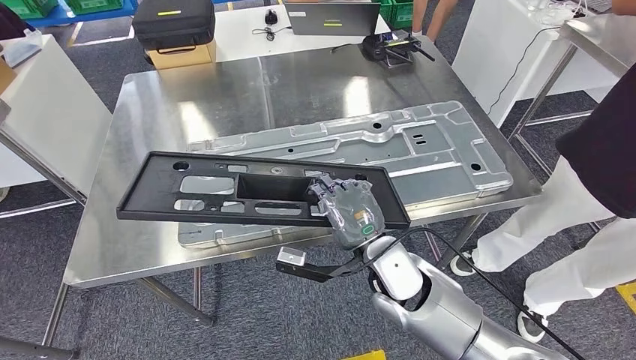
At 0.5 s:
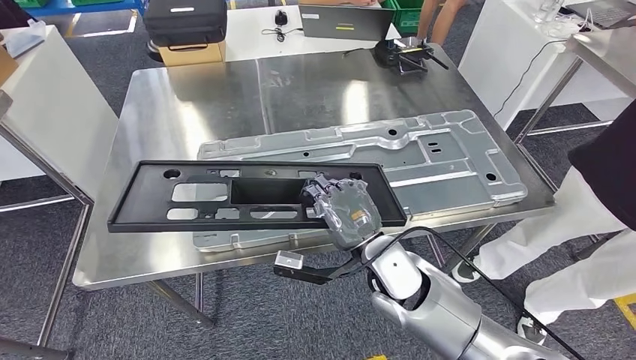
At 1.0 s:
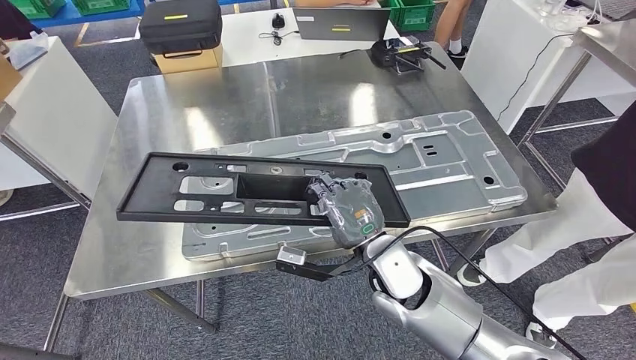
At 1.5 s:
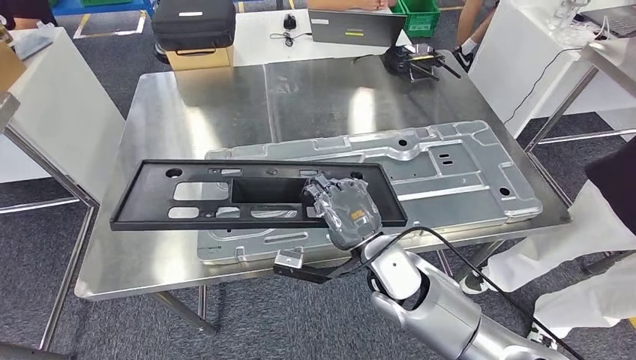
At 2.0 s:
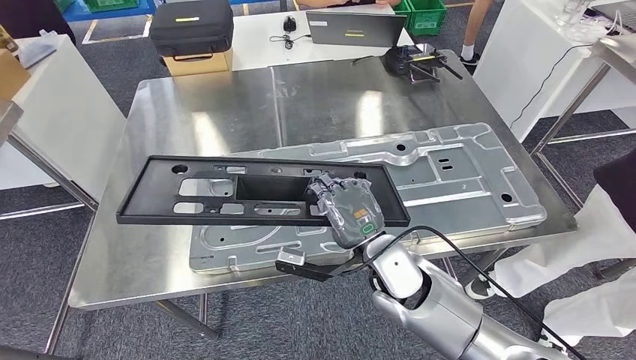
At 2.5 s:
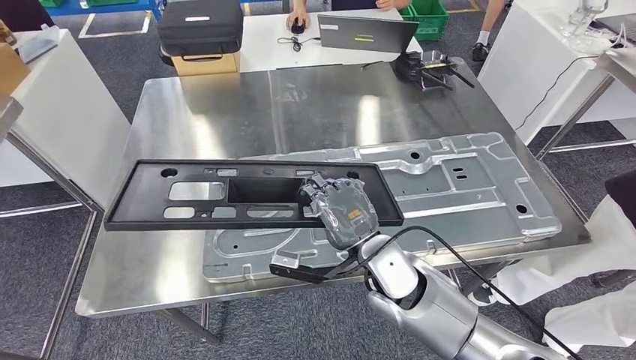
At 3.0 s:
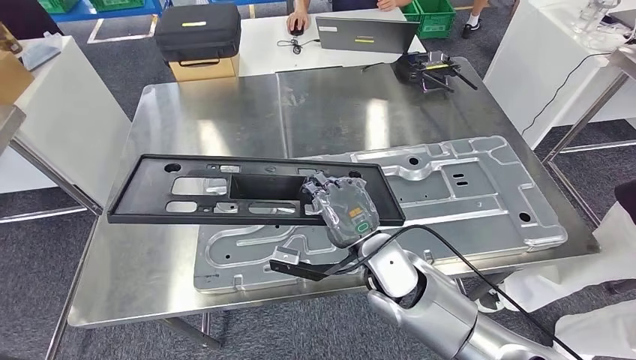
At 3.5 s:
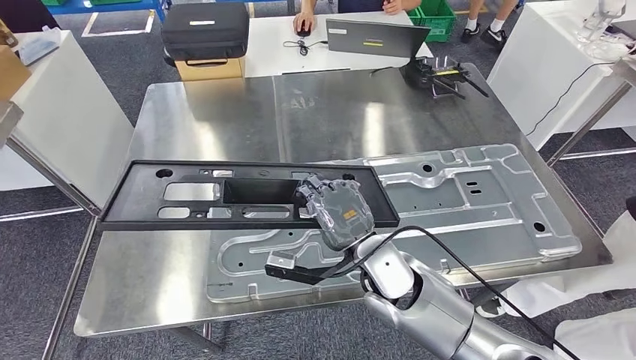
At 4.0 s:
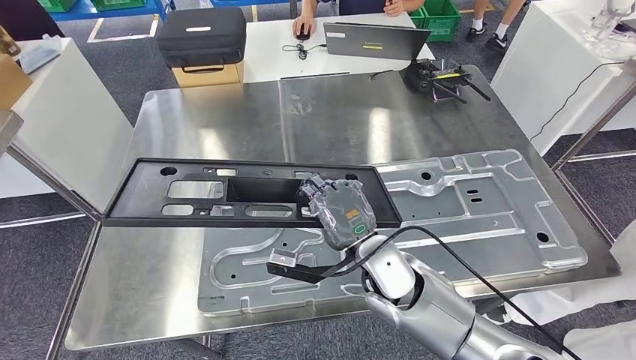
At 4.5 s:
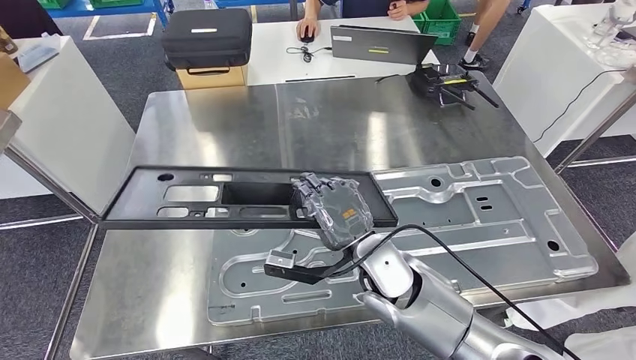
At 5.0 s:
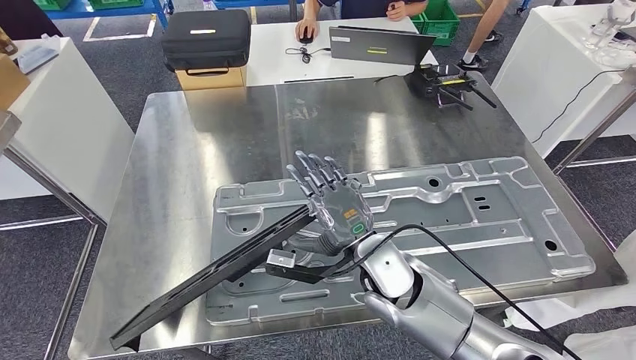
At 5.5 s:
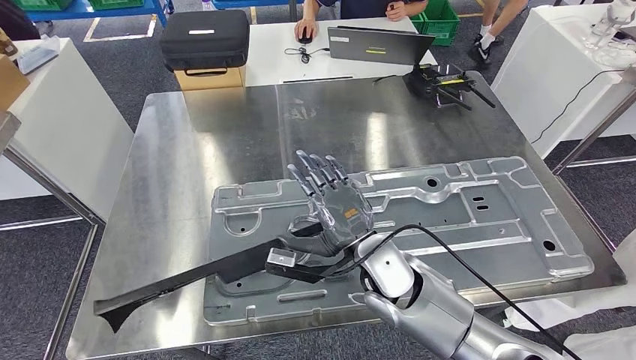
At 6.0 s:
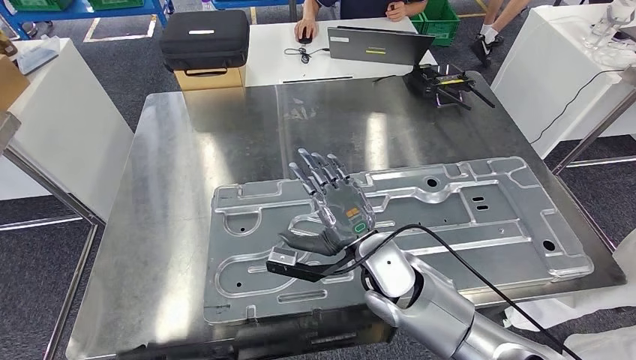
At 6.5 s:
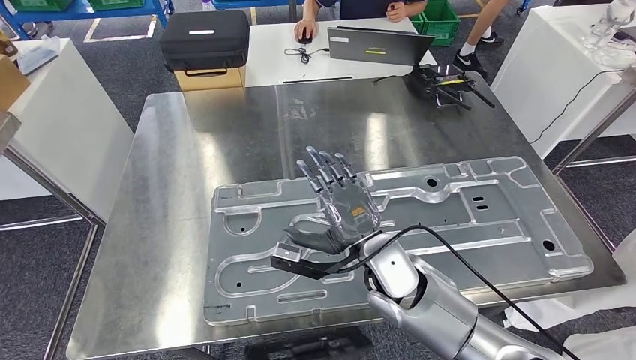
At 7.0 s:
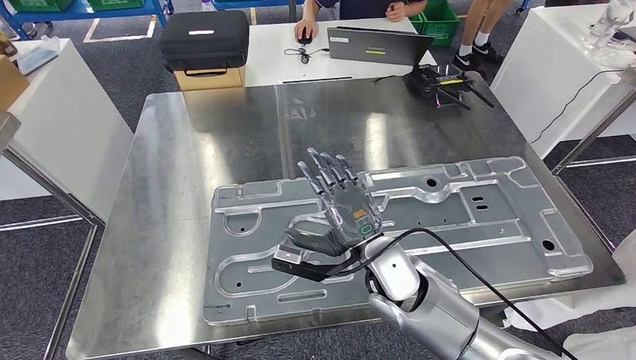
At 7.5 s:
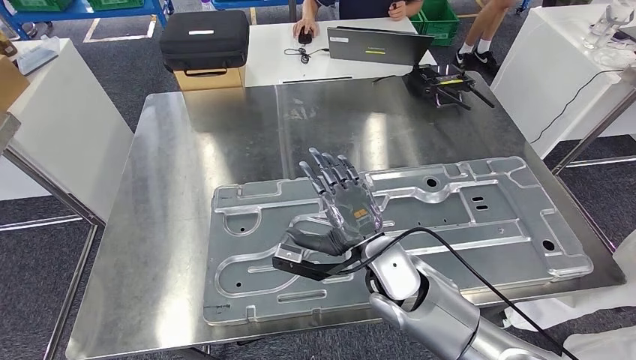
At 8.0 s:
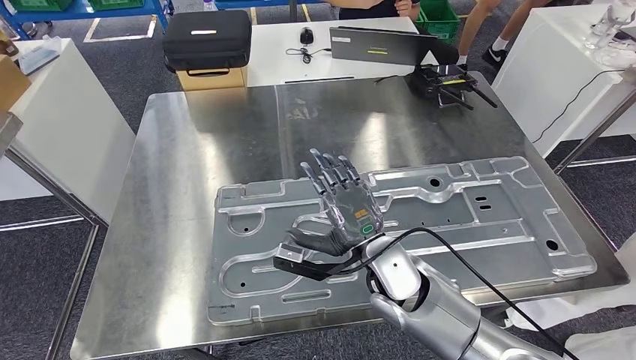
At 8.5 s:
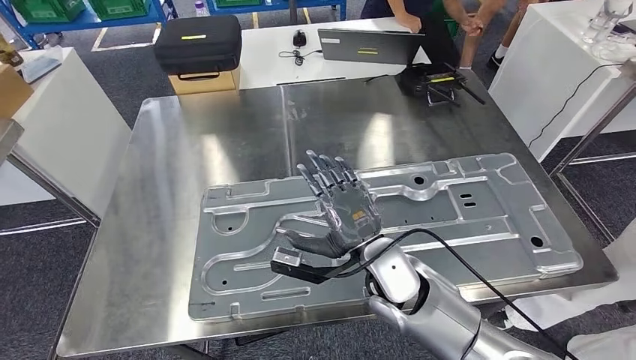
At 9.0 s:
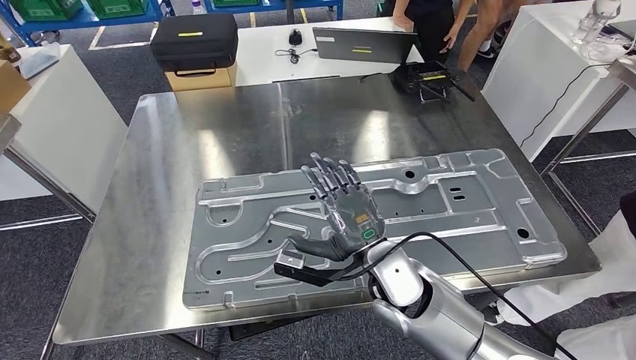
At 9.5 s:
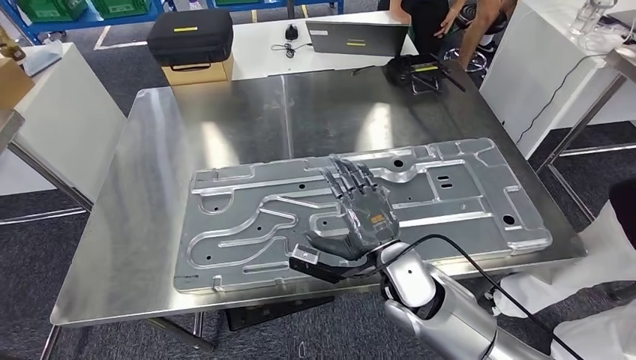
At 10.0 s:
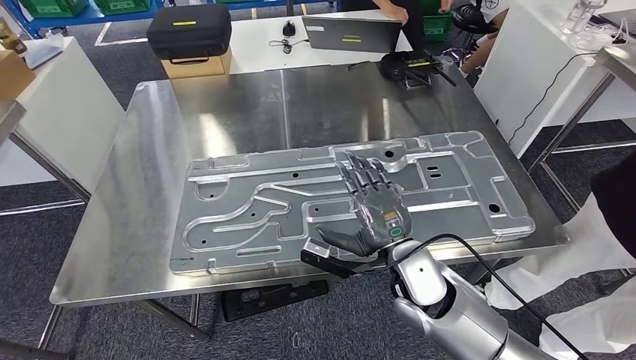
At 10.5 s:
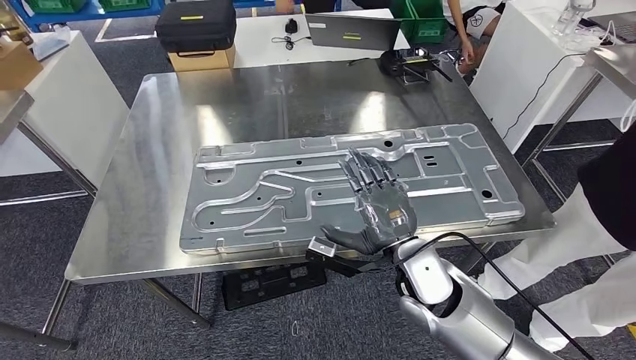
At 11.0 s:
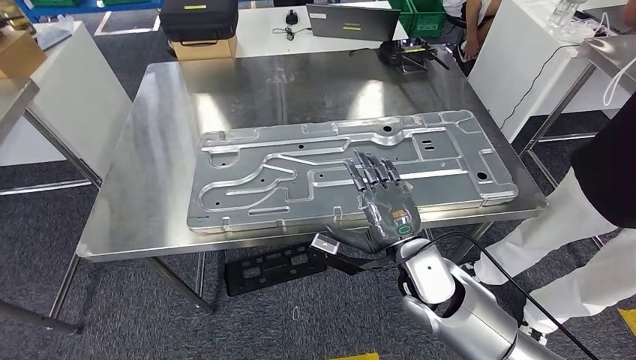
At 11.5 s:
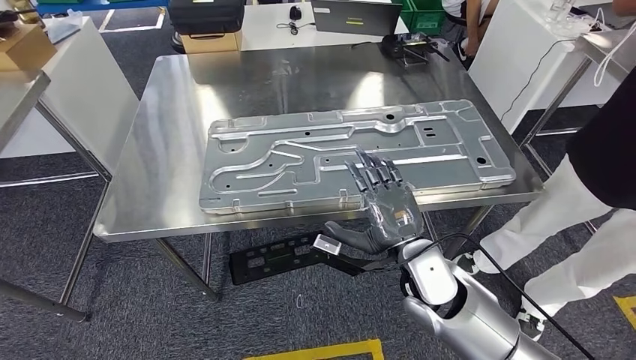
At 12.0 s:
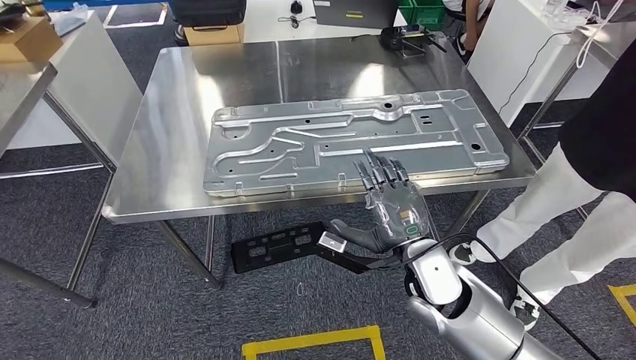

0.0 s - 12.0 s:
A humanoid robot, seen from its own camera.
Step, 0.0 s - 5.5 s: Insert the large material into the corresponding slot on the workbench.
6.0 s - 8.0 s: The two hands keep their place.

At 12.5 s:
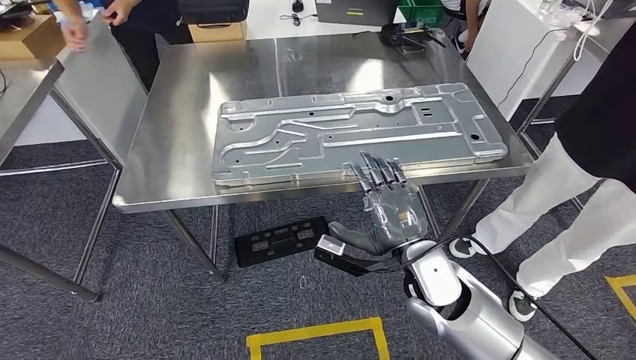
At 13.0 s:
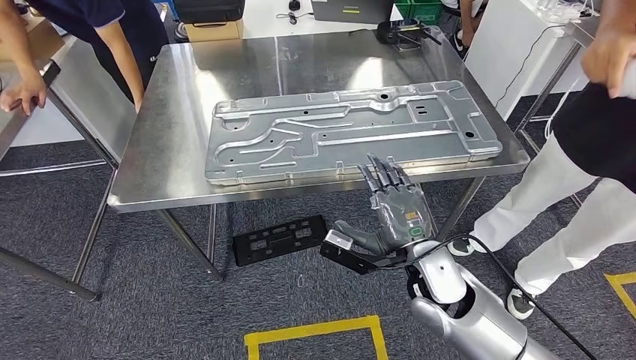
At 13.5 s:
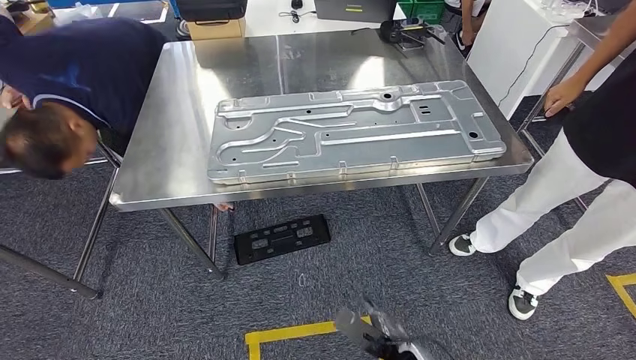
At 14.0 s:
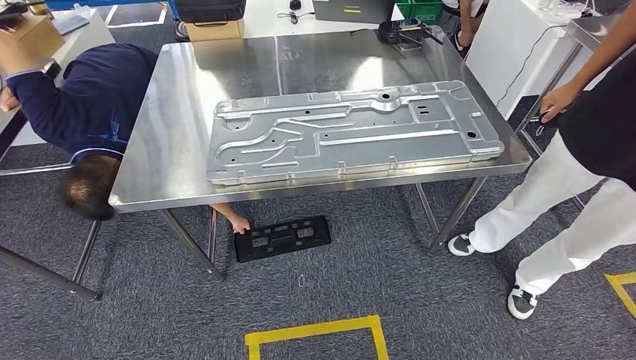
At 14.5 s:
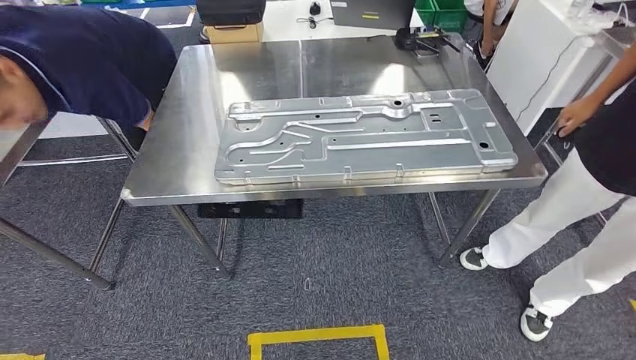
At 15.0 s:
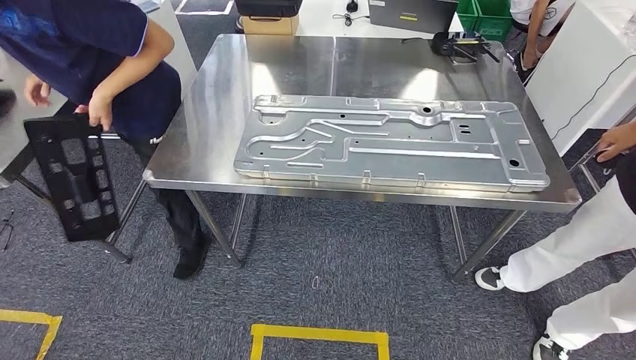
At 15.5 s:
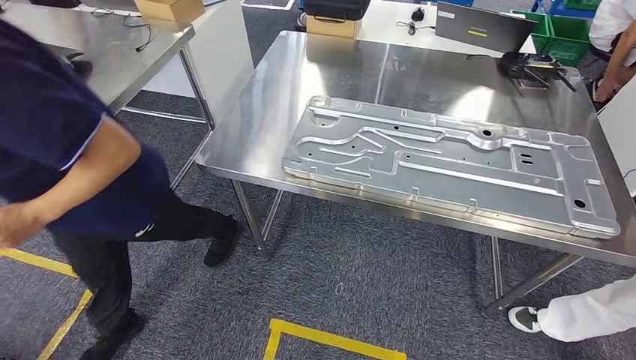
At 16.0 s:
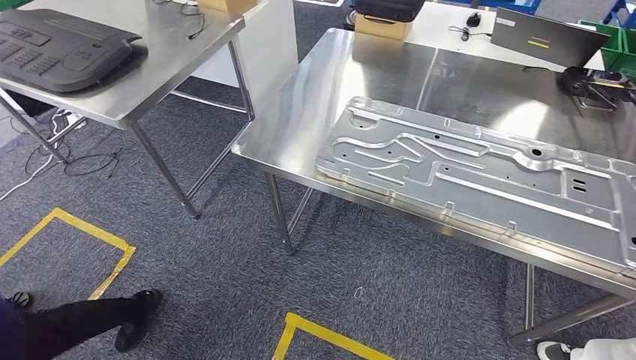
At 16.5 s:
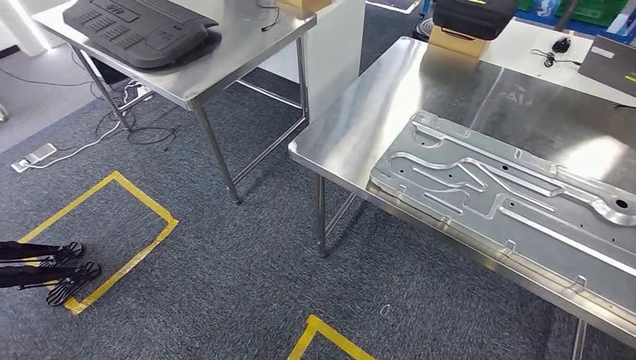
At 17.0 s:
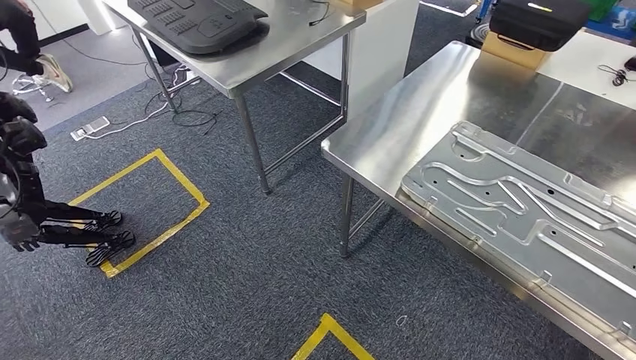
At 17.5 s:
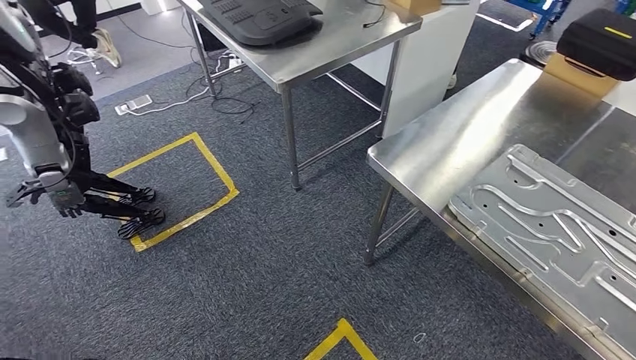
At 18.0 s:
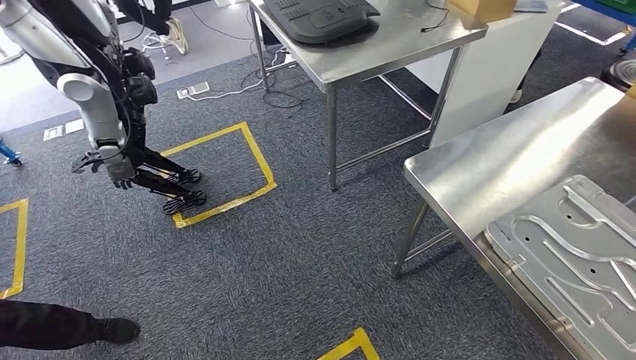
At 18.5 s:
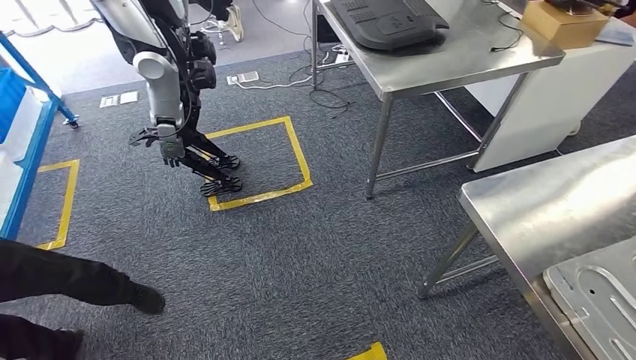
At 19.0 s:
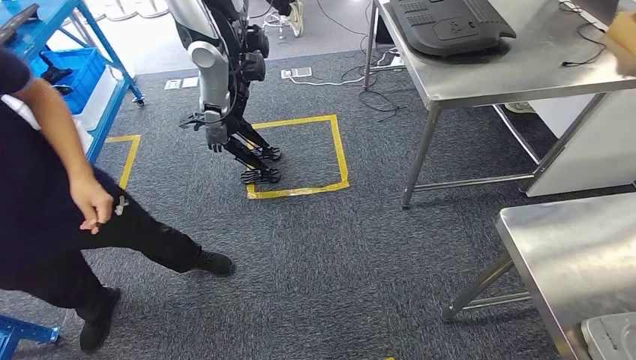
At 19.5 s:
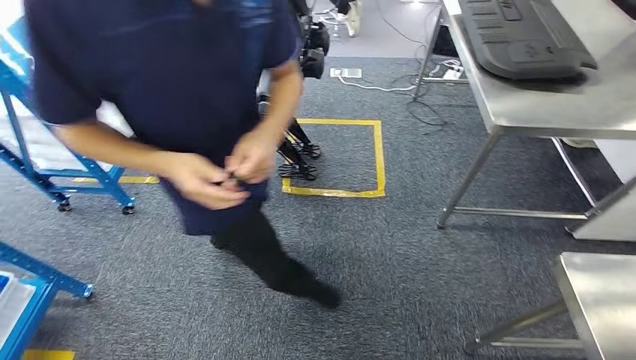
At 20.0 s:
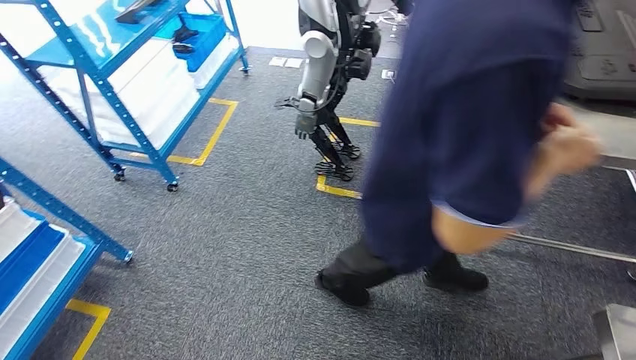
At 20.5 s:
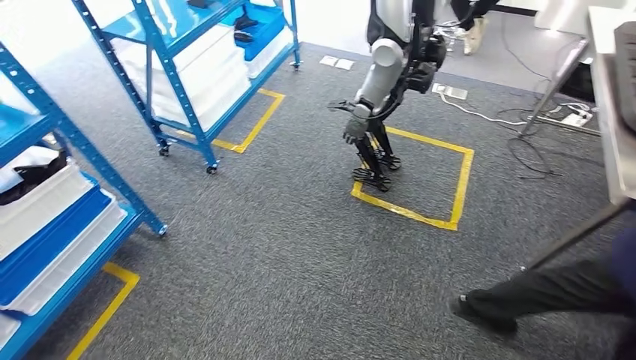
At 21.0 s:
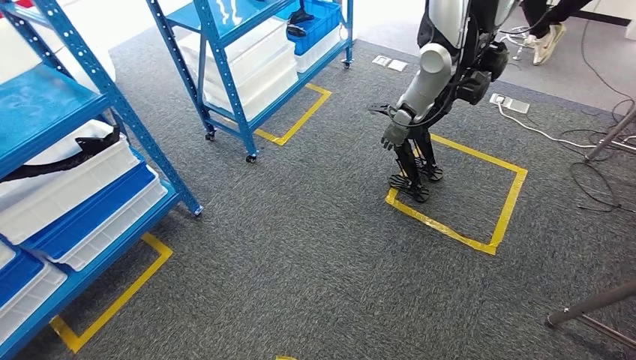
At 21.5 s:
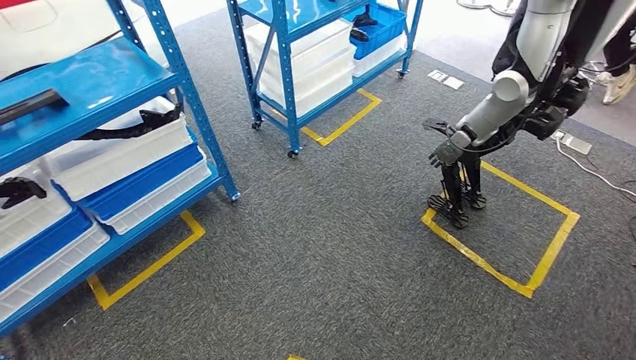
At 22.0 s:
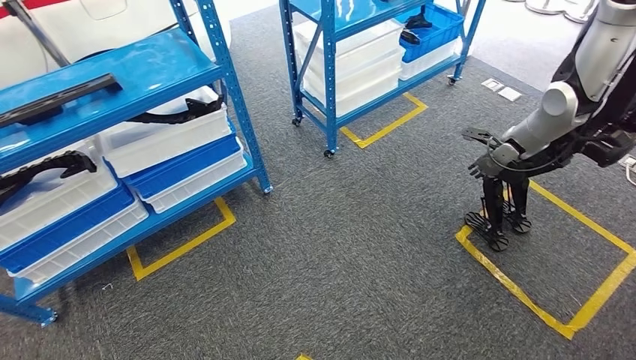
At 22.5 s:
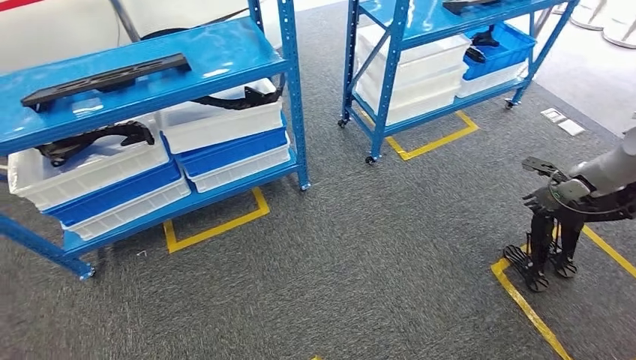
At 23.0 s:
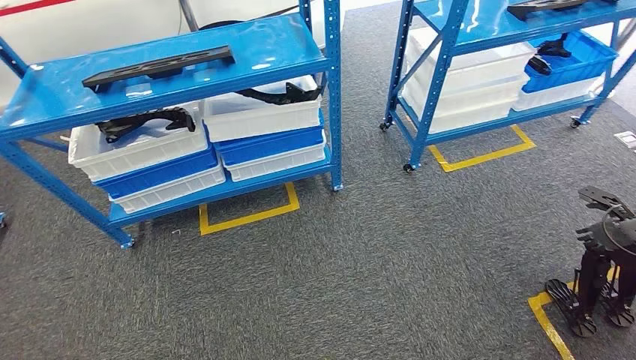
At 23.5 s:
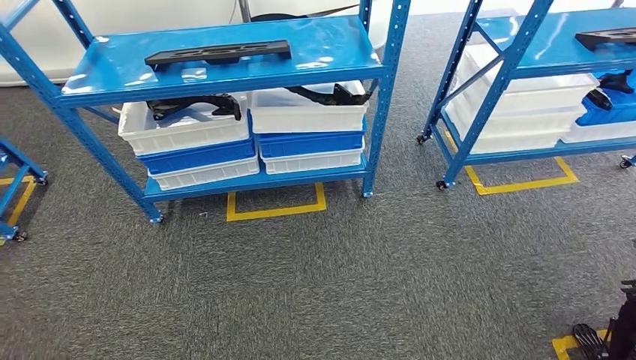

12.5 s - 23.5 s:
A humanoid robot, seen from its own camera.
Step, 12.5 s - 22.5 s: Move to the initial position of the shelf.
